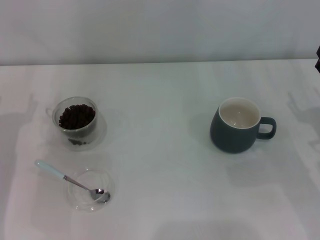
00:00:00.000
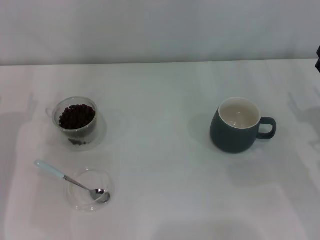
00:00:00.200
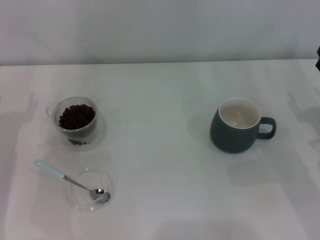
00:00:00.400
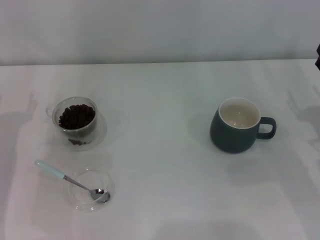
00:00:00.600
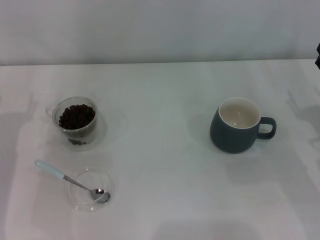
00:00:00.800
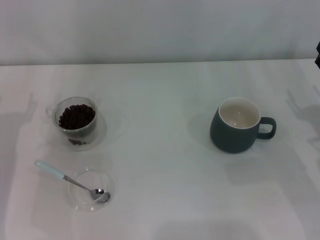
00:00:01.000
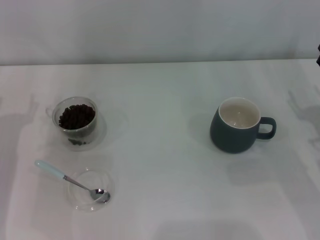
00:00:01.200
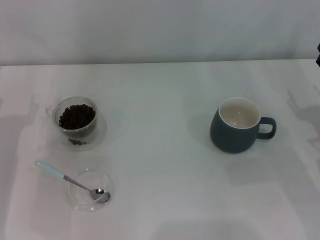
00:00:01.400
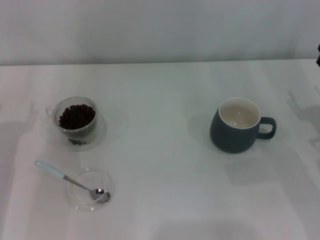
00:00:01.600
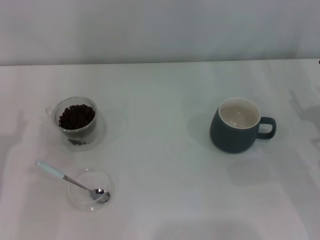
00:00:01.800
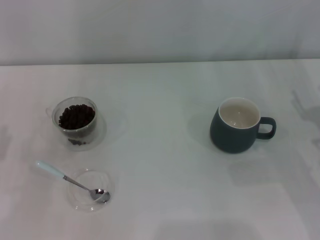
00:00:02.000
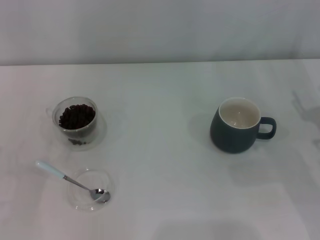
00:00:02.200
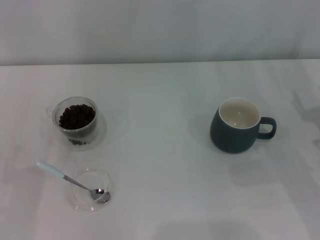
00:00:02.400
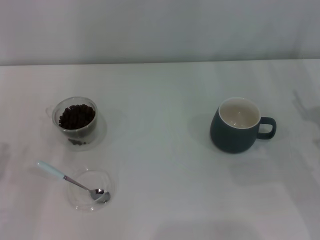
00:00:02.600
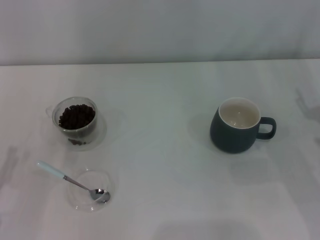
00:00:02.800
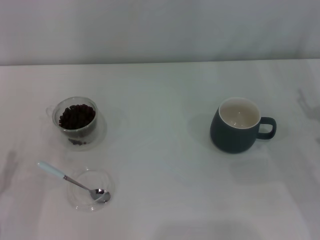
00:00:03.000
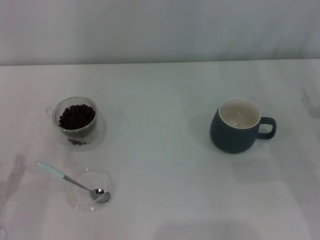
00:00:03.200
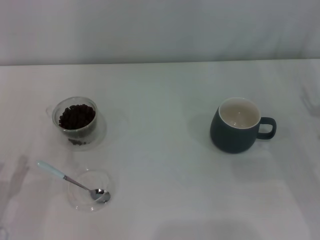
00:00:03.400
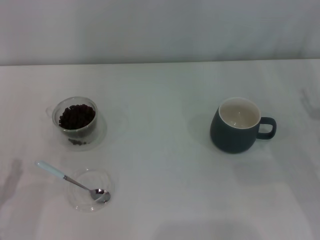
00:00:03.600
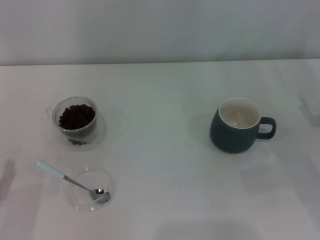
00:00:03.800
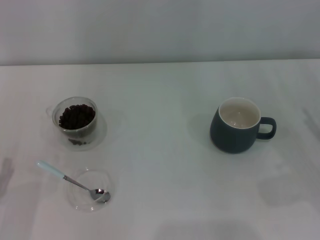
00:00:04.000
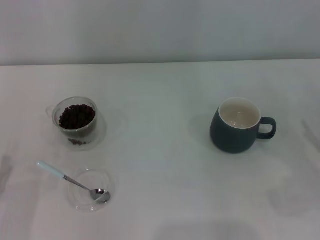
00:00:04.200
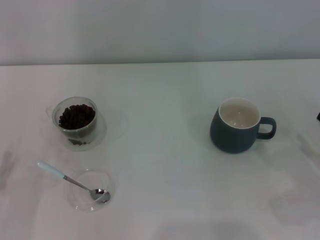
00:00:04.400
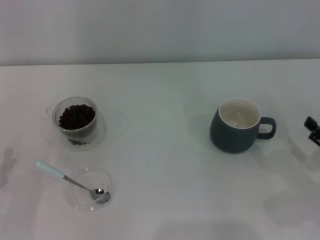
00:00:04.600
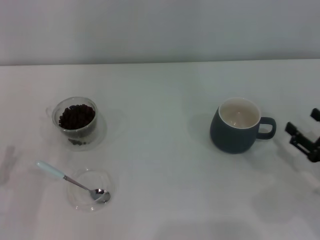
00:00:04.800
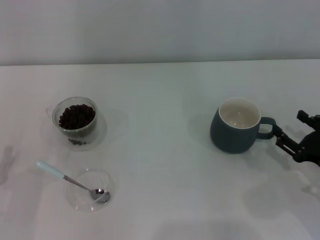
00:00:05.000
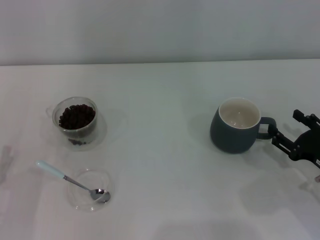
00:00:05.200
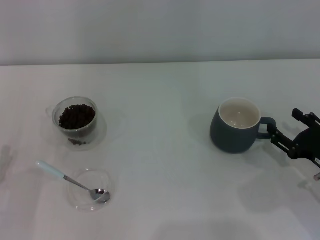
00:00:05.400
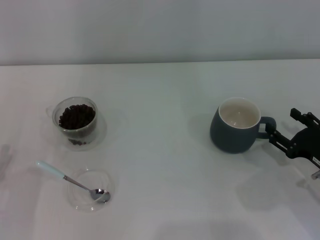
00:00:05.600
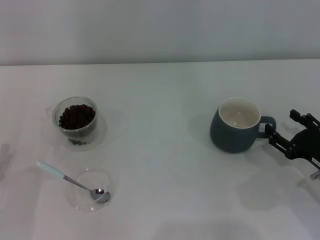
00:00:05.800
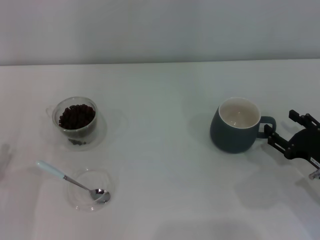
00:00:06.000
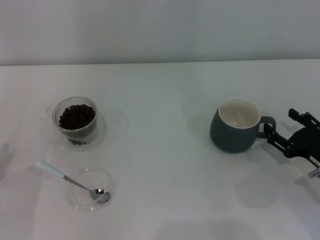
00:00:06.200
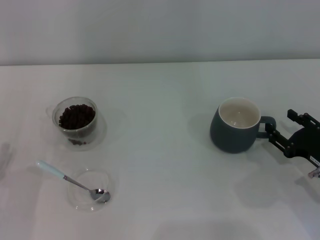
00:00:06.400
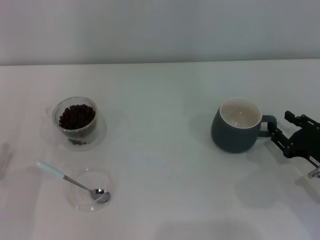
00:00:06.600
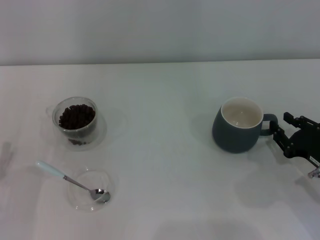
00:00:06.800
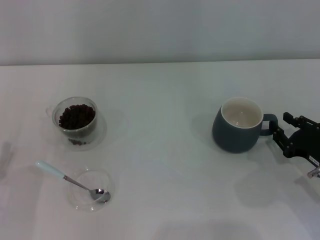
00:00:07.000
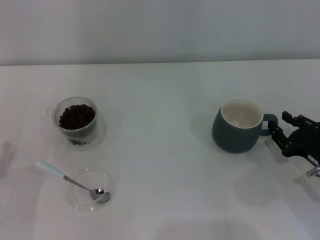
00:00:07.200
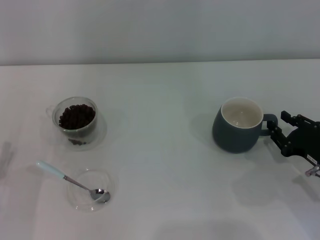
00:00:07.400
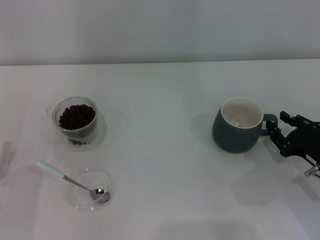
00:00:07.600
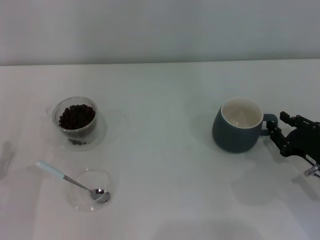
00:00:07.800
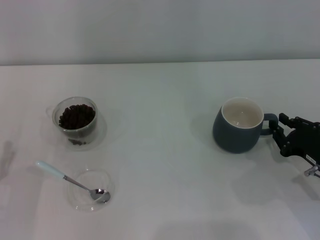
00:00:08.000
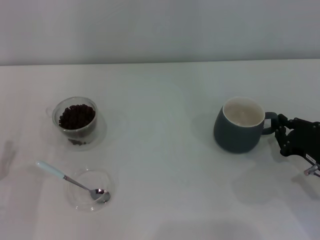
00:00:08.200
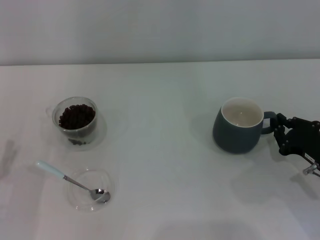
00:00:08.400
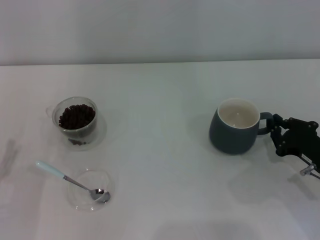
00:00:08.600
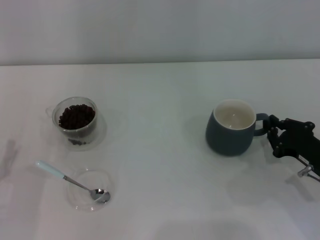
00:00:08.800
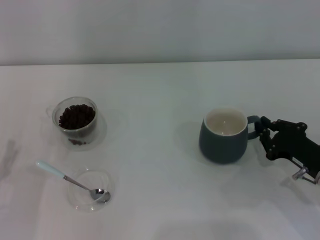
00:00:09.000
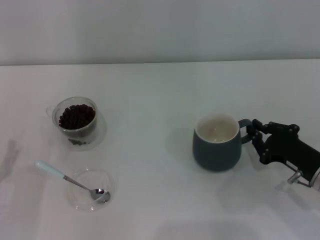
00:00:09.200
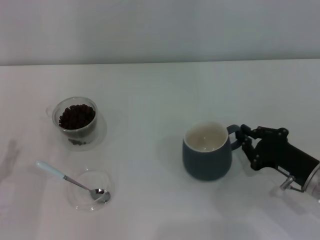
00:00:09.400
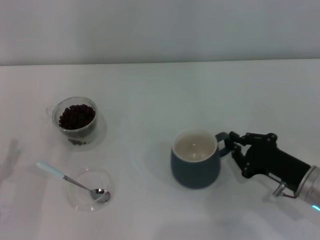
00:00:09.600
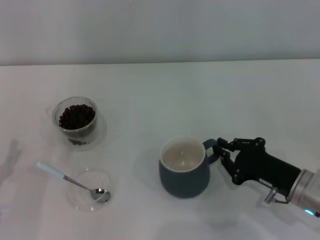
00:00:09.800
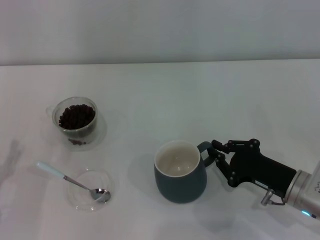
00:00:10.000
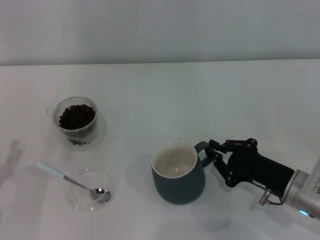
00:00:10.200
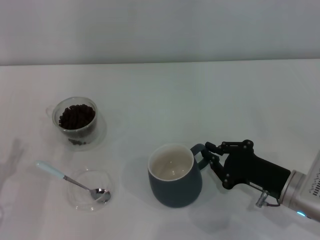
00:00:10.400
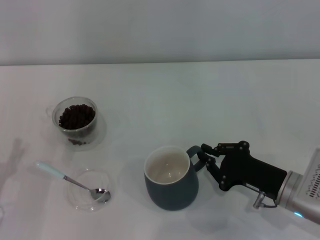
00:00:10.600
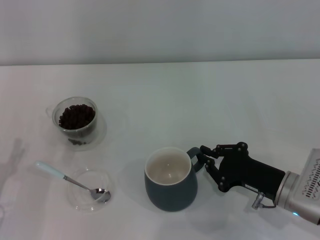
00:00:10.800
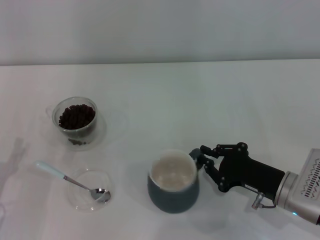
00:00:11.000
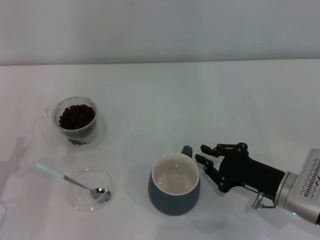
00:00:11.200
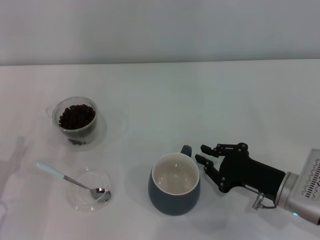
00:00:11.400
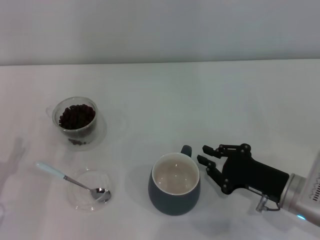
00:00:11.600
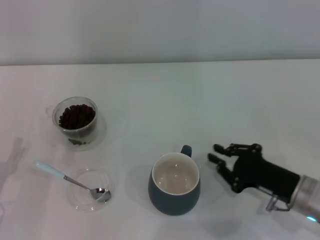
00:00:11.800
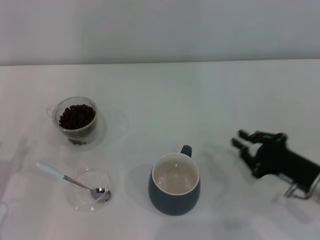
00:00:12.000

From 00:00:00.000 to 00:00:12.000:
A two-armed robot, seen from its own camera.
Task of the whole recording: Use a blue spoon to take out the coffee beans from the glass and pour them into the gray cup.
Step, from 00:00:00.000 to 00:00:12.000: Move the cup to the center of view with the left gripper.
From 00:00:04.400 to 00:00:06.000: The right gripper travels to the left by some 5 cm.
From 00:00:06.000 to 00:00:07.600: The right gripper closes its fingers.
From 00:00:07.600 to 00:00:09.000: The right gripper closes up.
From 00:00:09.000 to 00:00:10.400: The right gripper moves to the left, roughly 5 cm.
From 00:00:10.400 to 00:00:12.000: The grippers stay close to where they were, moving slightly.

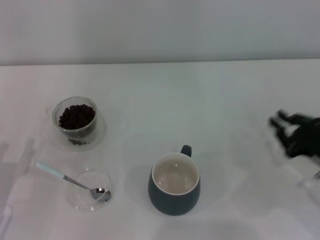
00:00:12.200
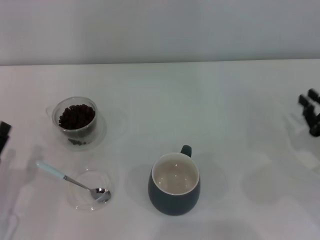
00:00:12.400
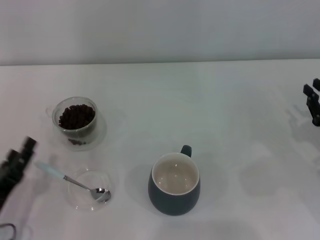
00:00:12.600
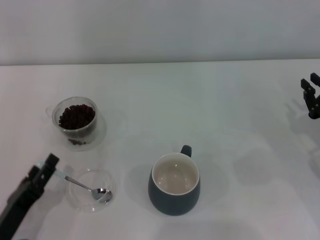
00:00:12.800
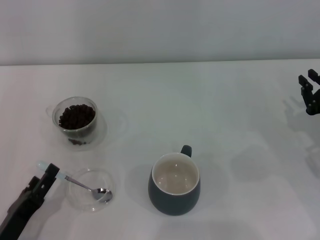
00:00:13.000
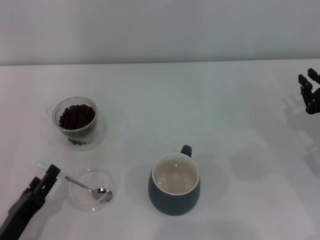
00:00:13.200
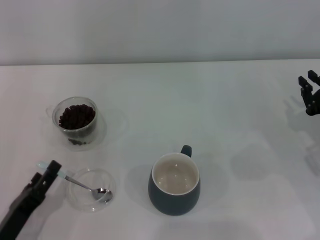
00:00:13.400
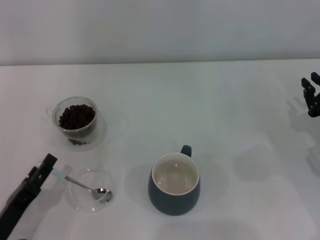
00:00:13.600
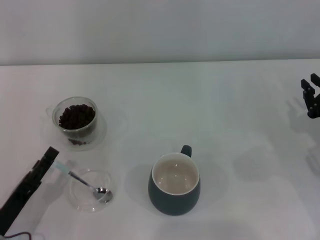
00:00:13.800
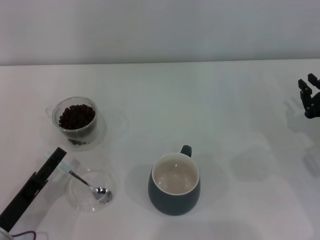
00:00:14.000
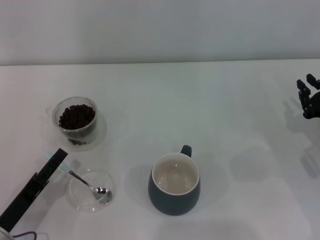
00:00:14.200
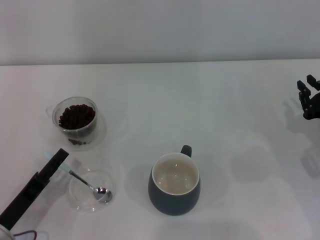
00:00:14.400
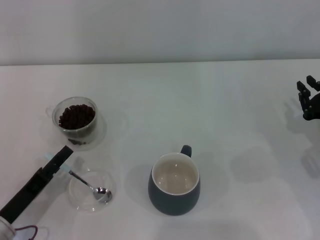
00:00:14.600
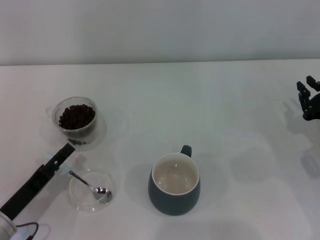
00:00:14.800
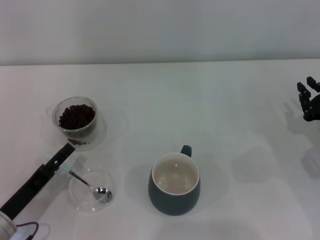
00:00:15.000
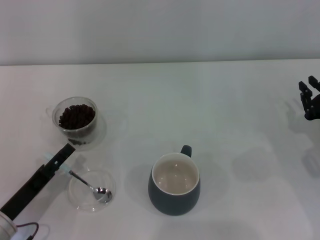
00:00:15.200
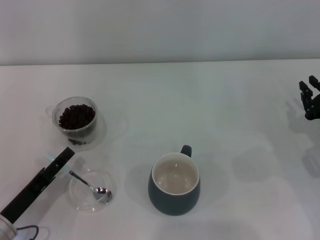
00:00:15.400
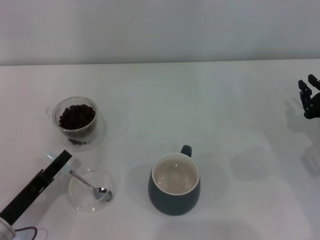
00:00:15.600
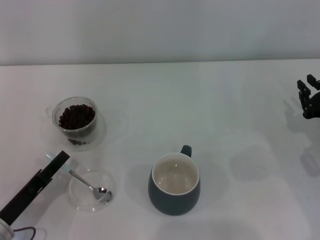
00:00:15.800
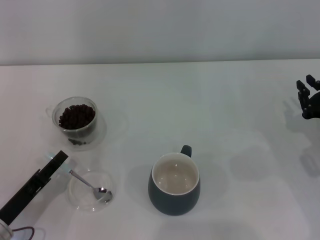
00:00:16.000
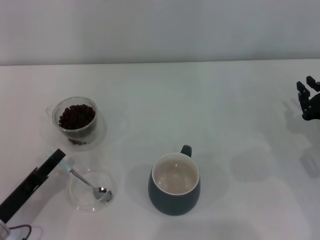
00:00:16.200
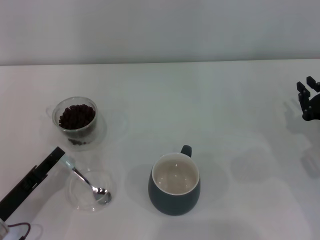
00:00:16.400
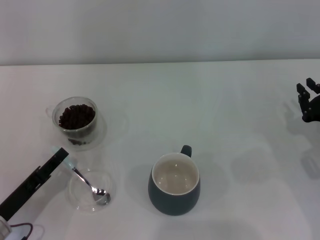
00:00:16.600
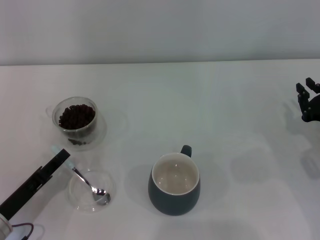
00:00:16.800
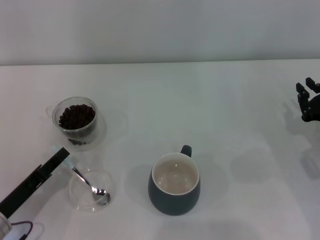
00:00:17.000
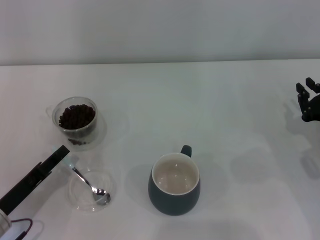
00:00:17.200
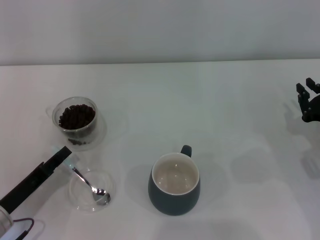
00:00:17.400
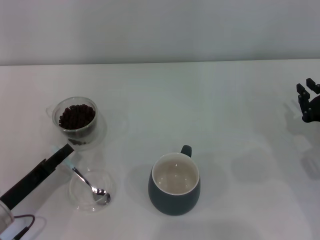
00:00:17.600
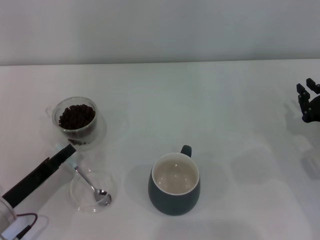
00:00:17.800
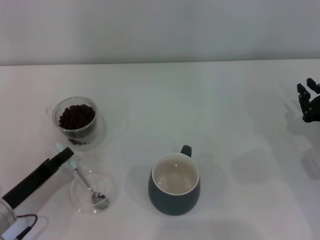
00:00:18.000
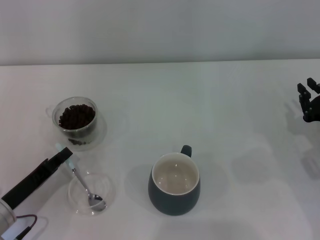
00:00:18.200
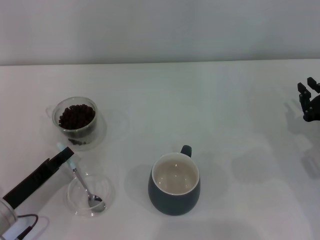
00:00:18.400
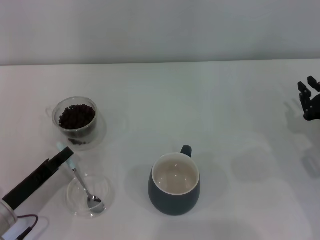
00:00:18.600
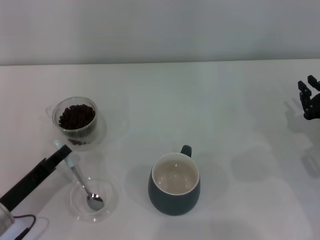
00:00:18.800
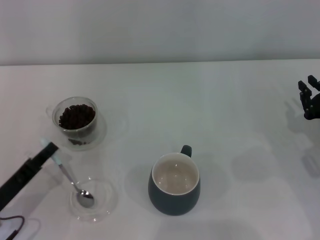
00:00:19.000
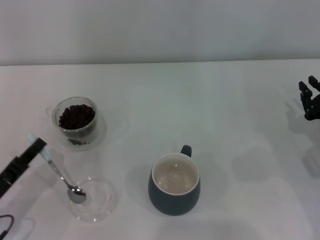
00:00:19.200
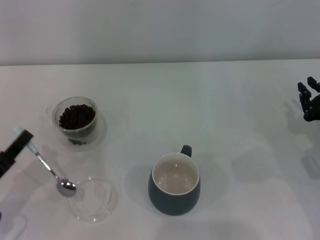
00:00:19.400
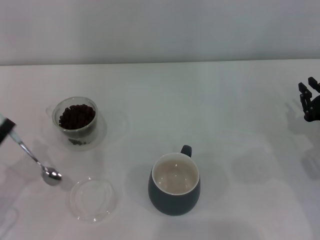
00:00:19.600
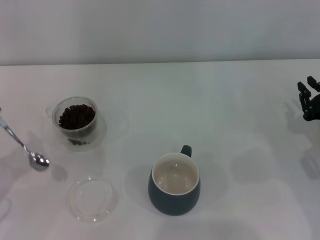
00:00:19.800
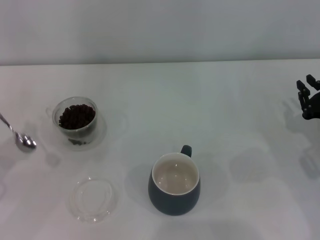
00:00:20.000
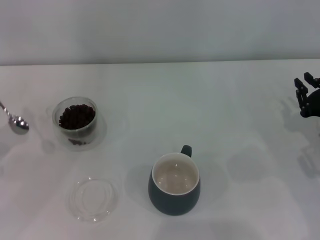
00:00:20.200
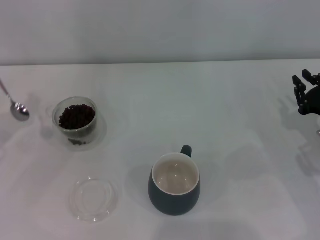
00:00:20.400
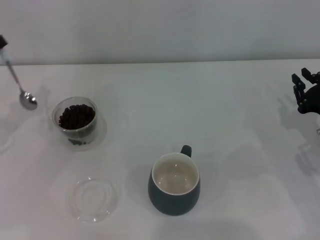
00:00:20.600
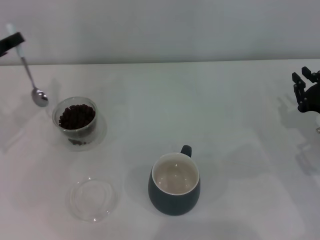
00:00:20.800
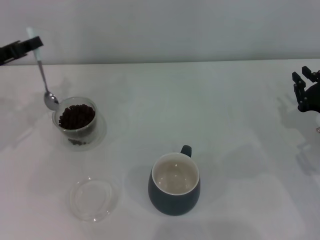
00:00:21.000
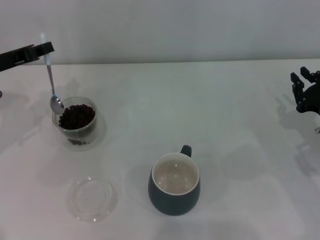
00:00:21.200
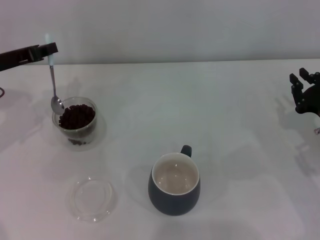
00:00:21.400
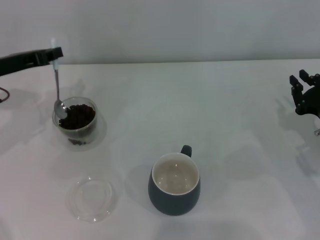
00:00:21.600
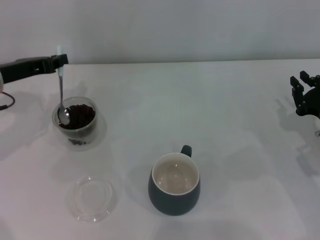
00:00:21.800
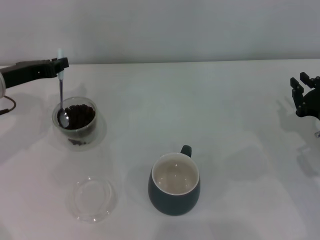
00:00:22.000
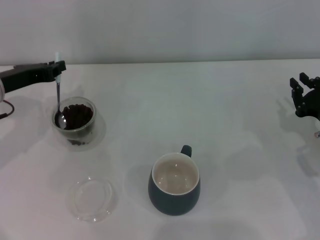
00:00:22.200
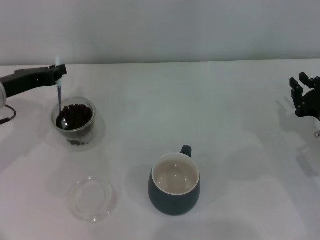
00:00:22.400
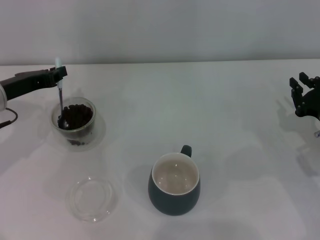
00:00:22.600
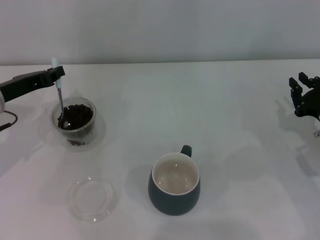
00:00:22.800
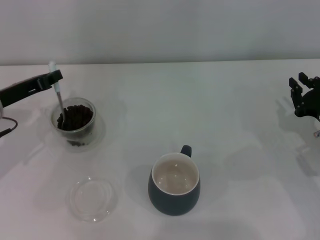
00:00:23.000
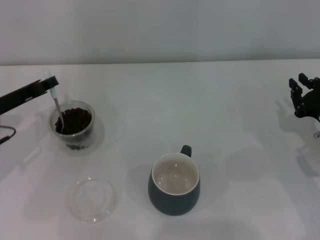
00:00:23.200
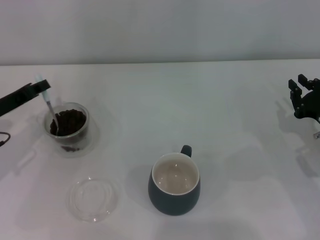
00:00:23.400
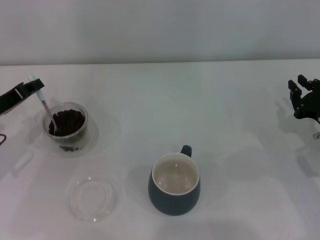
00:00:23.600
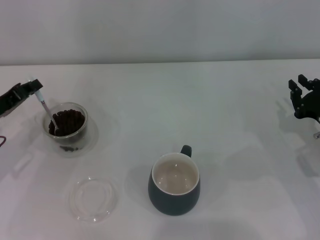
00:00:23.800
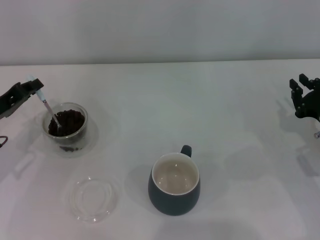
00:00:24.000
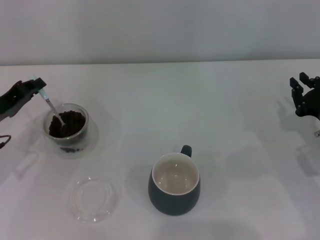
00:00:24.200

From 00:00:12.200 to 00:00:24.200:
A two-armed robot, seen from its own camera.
Task of the whole recording: Use a blue spoon to take out the coffee beans from the glass and pour them into the gray cup.
Step, from 00:00:12.200 to 00:00:19.400: Pick up the spoon with the right gripper.
From 00:00:12.200 to 00:00:13.800: The left gripper changes place by roughly 5 cm; the right gripper shifts by approximately 5 cm.
From 00:00:13.800 to 00:00:15.200: The grippers move only a little.
From 00:00:15.200 to 00:00:16.600: The left gripper closes.
From 00:00:16.600 to 00:00:18.200: The left gripper closes up.
From 00:00:18.200 to 00:00:19.800: The left gripper heads to the left and upward, covering some 10 cm.
From 00:00:19.800 to 00:00:21.200: The left gripper goes about 20 cm forward and upward.
From 00:00:21.200 to 00:00:22.600: The grippers move only a little.
From 00:00:22.600 to 00:00:24.200: The left gripper ends up about 5 cm from where it was.
